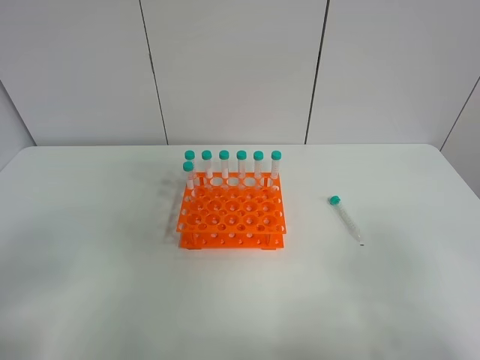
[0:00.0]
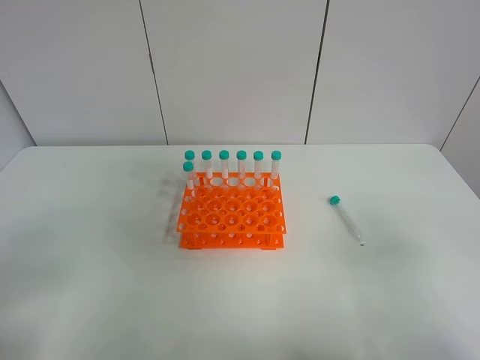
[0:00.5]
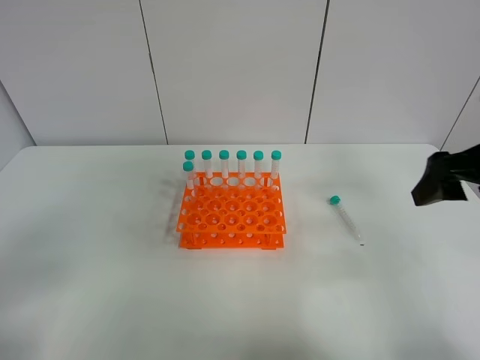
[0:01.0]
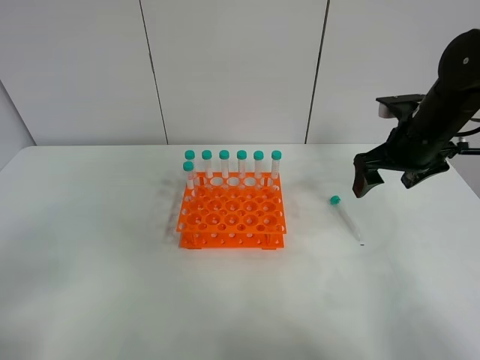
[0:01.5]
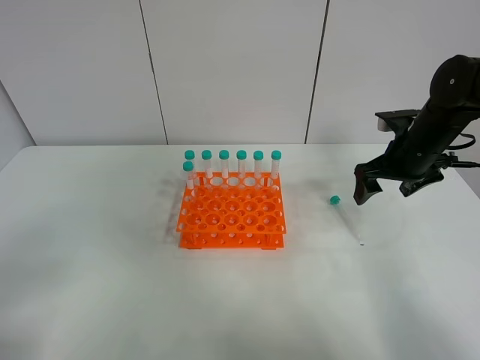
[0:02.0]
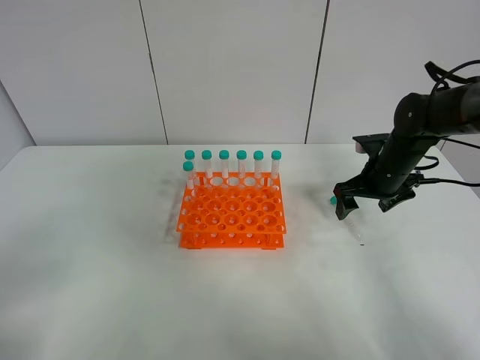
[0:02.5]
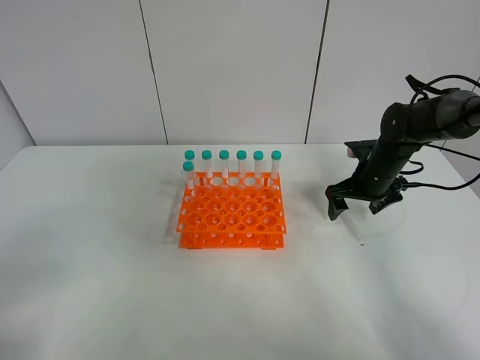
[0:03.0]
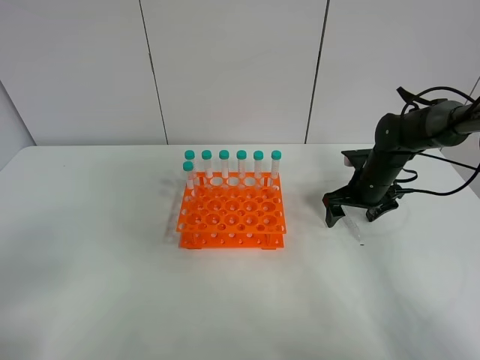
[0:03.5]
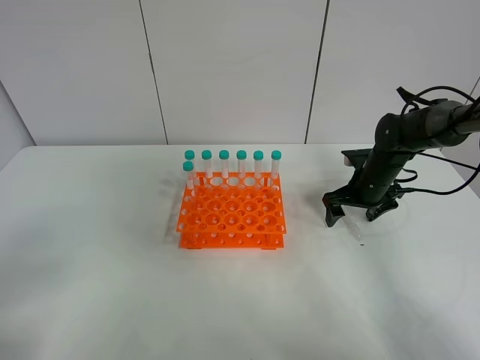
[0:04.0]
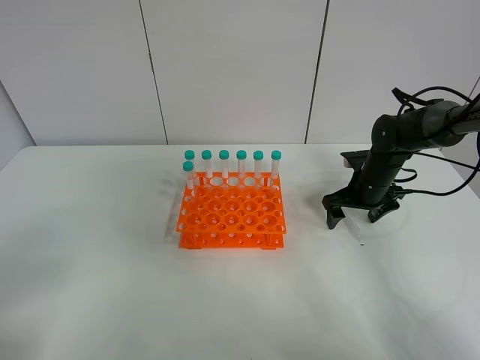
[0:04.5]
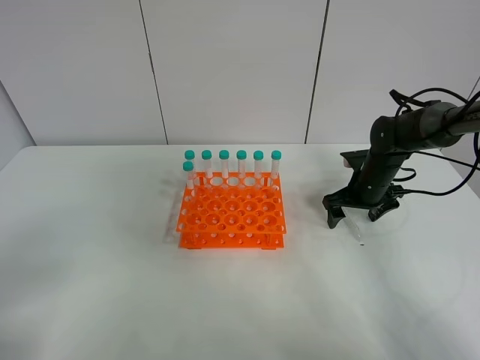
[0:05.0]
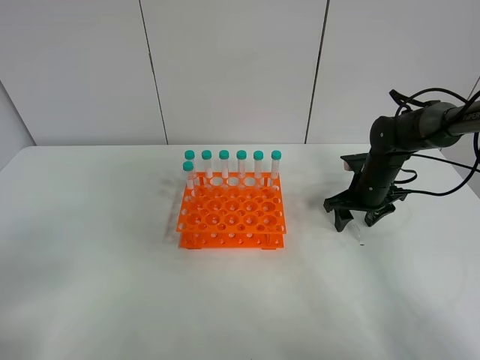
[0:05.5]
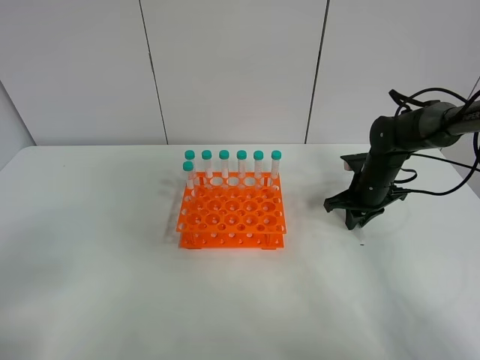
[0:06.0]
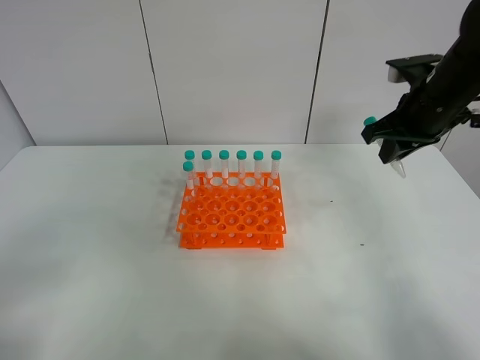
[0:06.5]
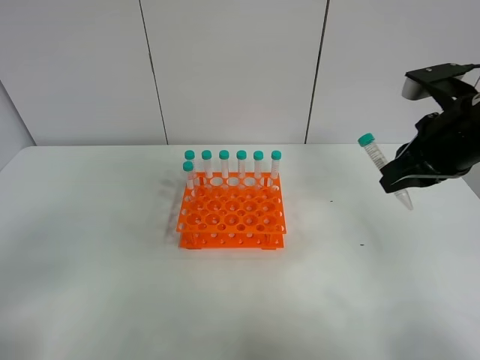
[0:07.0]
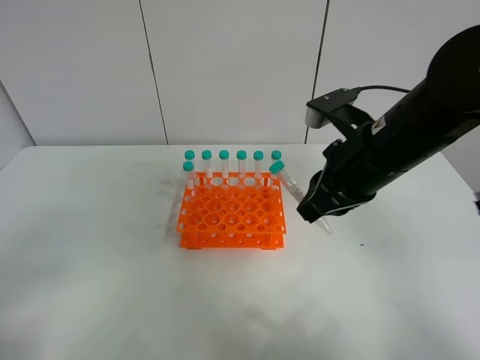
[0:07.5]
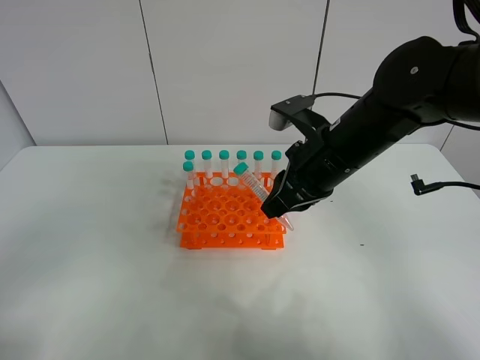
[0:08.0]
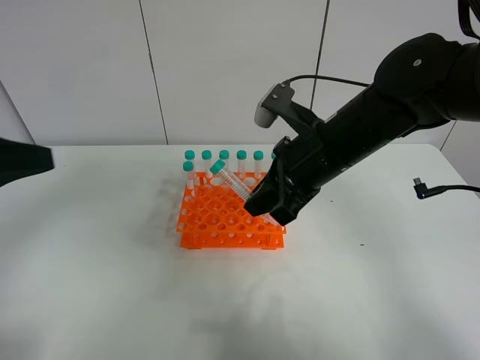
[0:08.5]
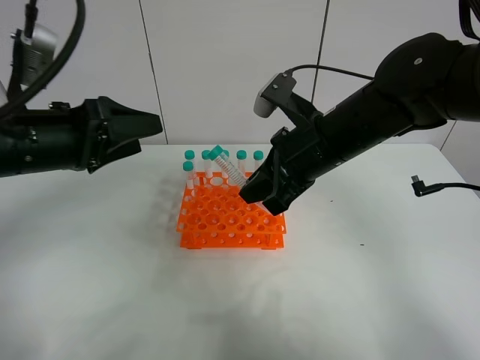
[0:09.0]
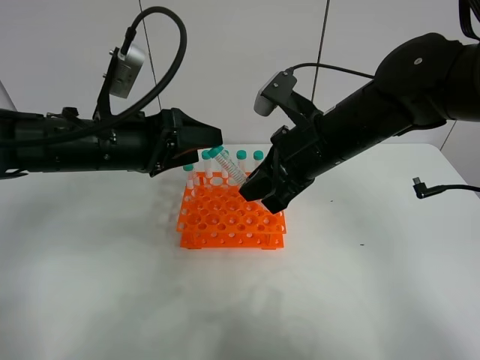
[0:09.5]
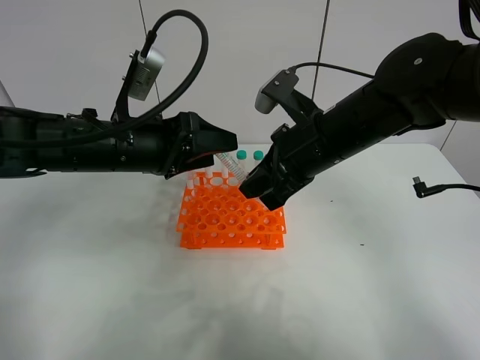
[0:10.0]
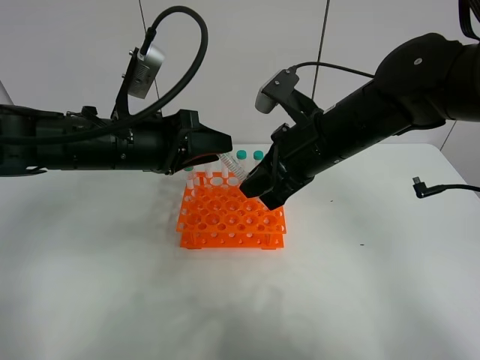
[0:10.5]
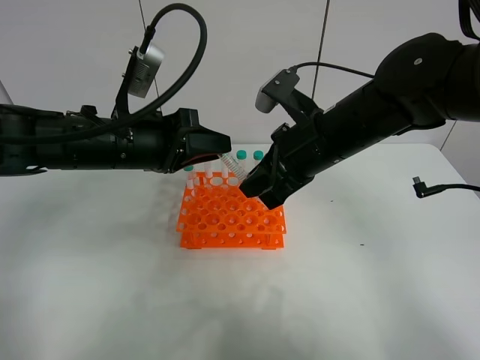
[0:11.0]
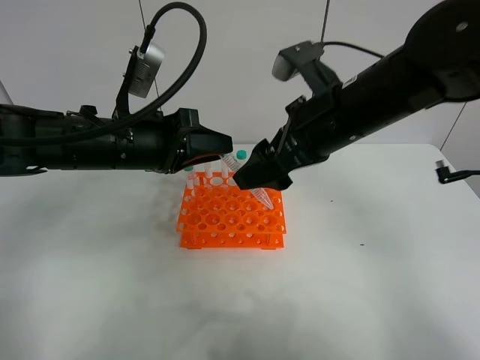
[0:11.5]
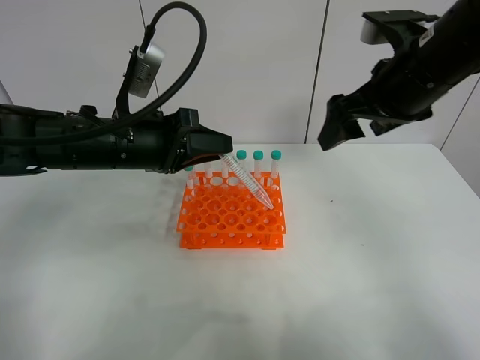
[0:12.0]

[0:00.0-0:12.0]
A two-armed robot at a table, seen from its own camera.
Task of the whole recording: Put the test tube on the table back onto the test tube rack.
Step, 0:00.0 to 0:05.5: Pick up the test tube with the right gripper.
Step, 0:06.0 to 0:11.0: Move the test tube from the right gripper to the left gripper.
0:00.0 to 0:02.0: The right gripper heads forward, covering approximately 35 cm.
0:02.0 to 0:04.0: The right gripper moves downward, about 10 cm.
0:04.0 to 0:06.0: The right gripper closes.
0:06.0 to 0:08.0: The right gripper shifts about 25 cm upward, to the left and backward.
0:08.0 to 0:10.0: The left gripper shifts roughly 35 cm forward and to the right.
0:10.0 to 0:12.0: The left gripper closes. The right gripper moves to the right and upward, roughly 10 cm, and opens its fingers.

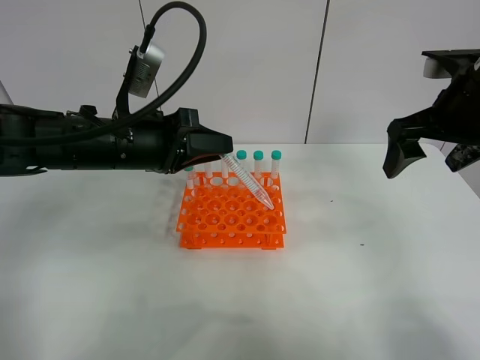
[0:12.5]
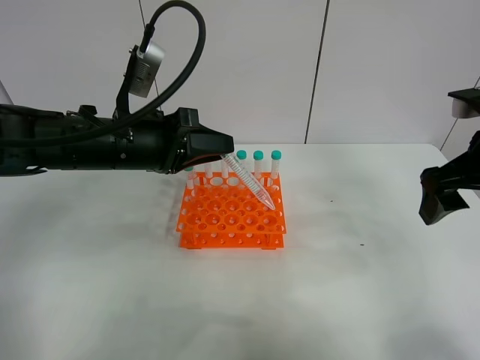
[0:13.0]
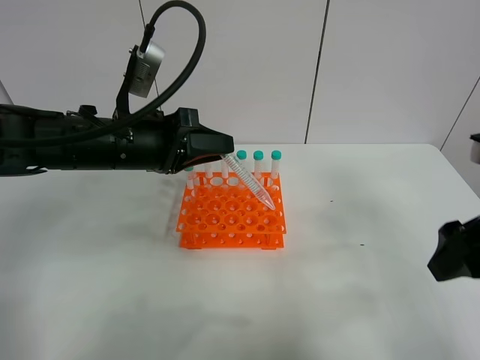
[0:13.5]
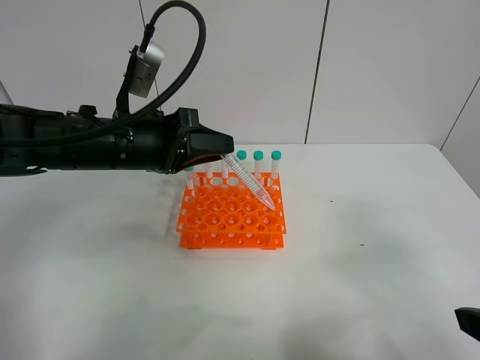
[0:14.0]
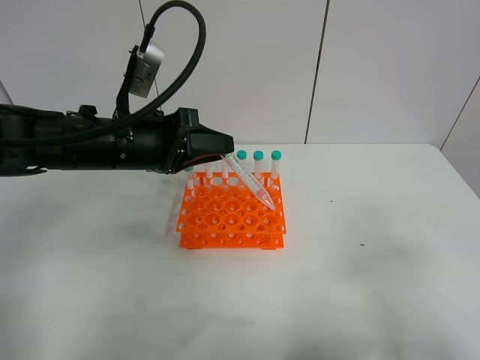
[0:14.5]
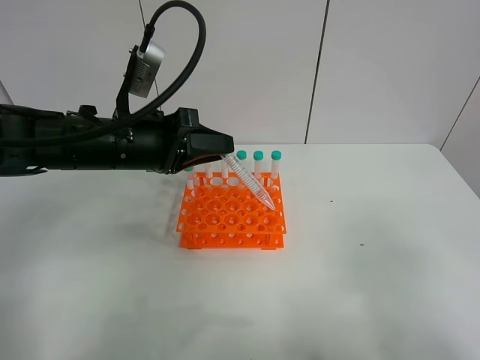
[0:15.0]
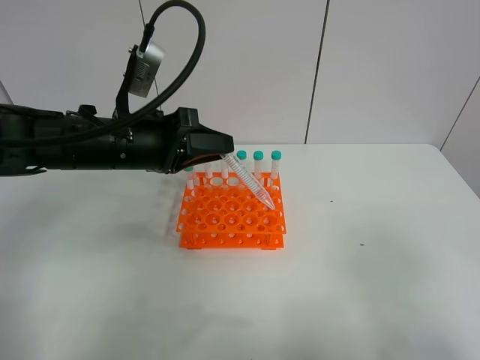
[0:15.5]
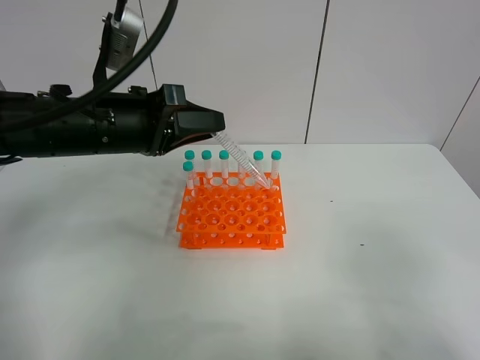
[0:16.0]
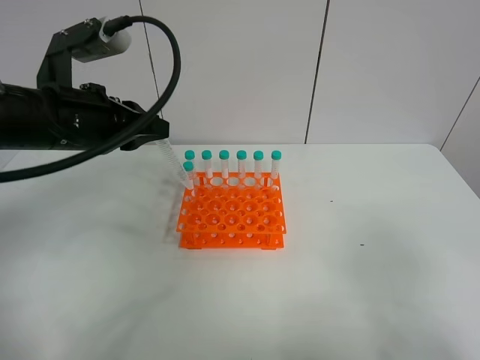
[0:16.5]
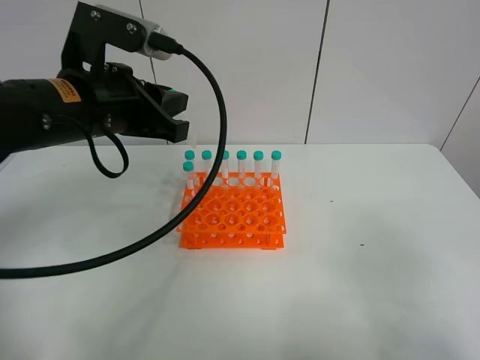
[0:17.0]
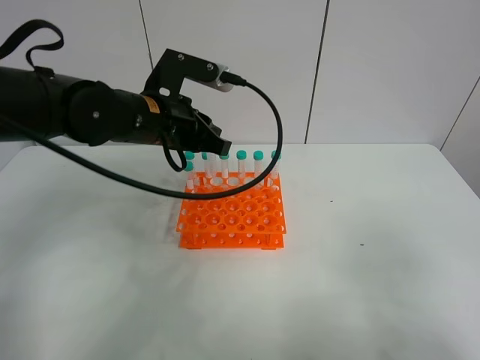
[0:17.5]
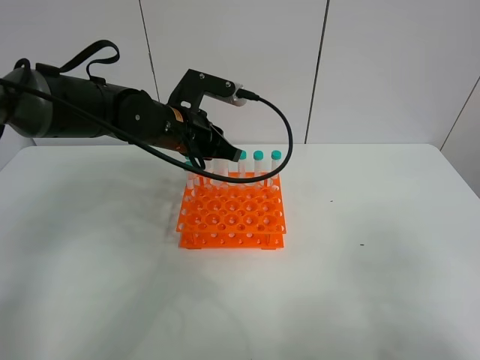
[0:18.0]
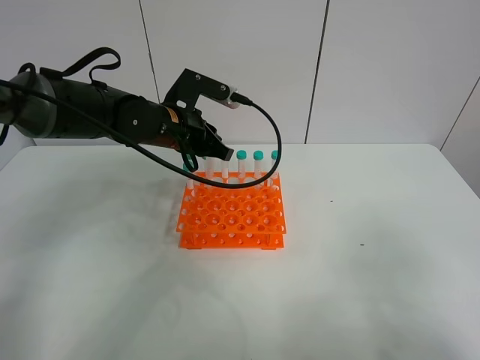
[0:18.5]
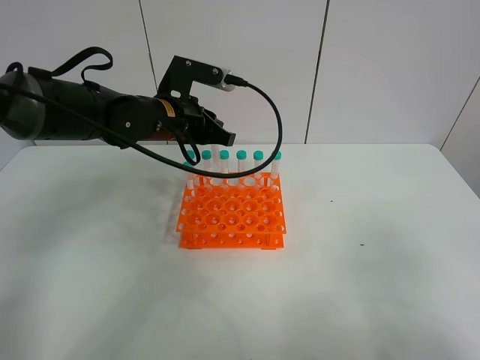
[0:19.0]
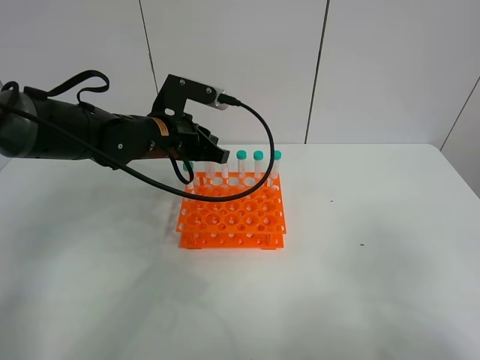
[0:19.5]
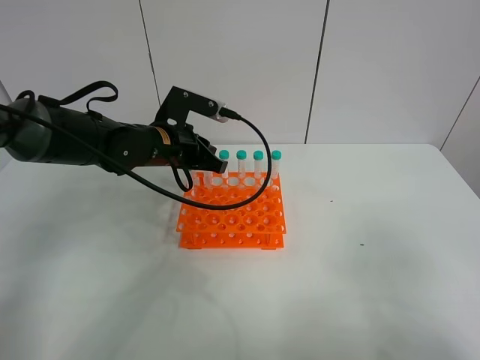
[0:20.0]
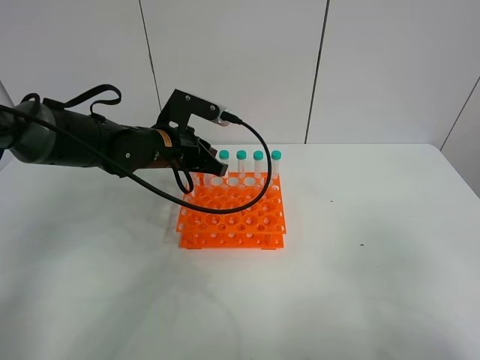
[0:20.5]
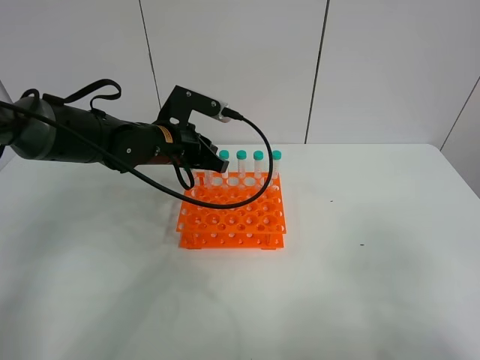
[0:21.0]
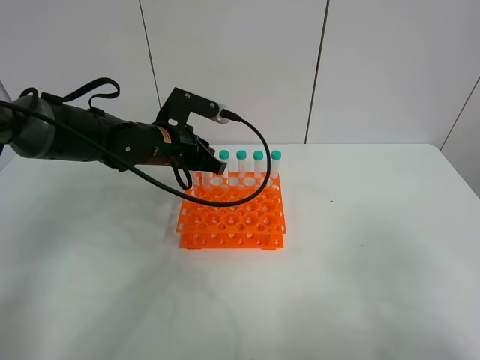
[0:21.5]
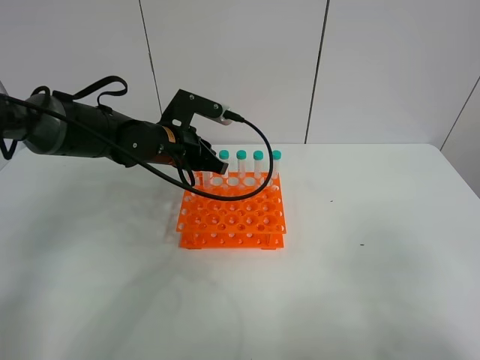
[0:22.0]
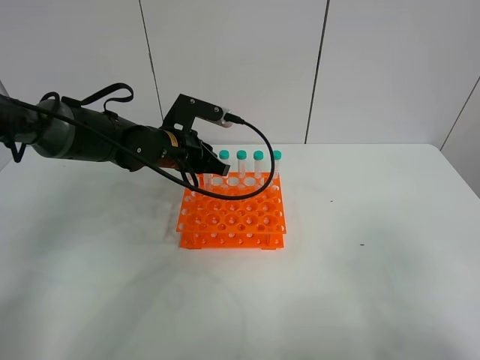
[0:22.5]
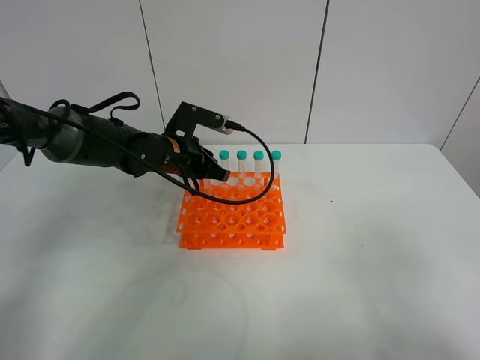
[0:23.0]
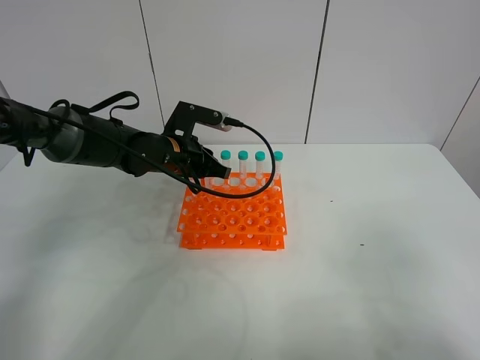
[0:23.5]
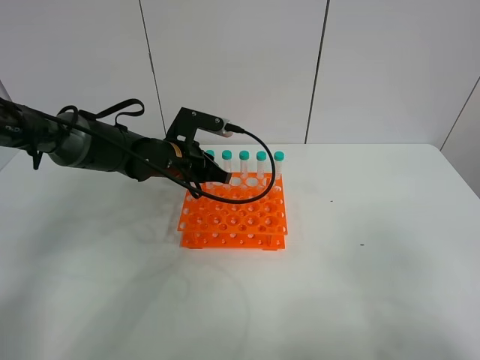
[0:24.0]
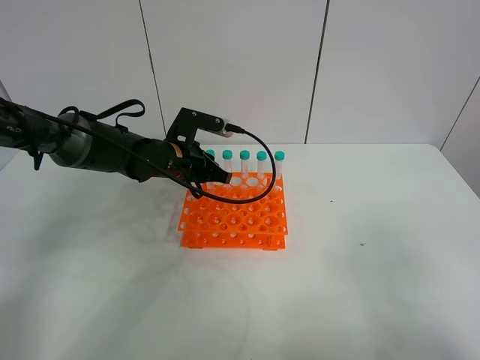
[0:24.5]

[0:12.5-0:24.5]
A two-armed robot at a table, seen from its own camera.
Task of the whole recording: Put the test tube on the table back onto the test tube rack.
0:12.5 to 0:14.5: The right gripper goes approximately 25 cm backward.
0:14.5 to 0:16.5: The left gripper moves upward, roughly 5 cm.
0:16.5 to 0:18.5: The left gripper shifts some 15 cm forward, to the right and downward.
0:18.5 to 0:22.5: There are only small adjustments of the grippers.
0:22.5 to 0:24.5: The grippers stay close to where they were, moving slightly.

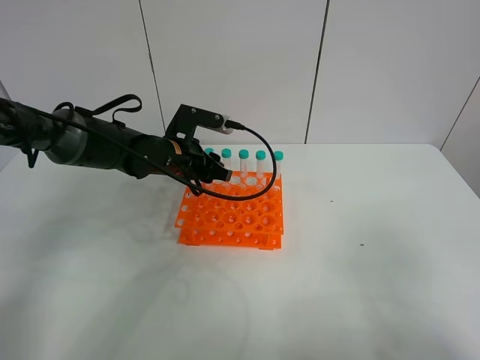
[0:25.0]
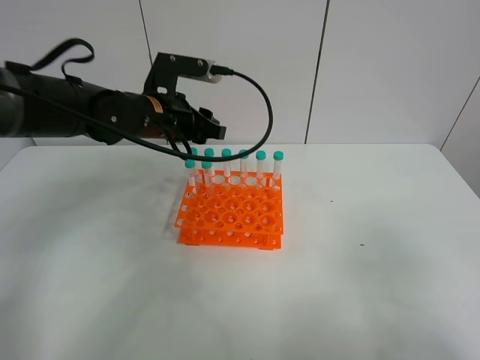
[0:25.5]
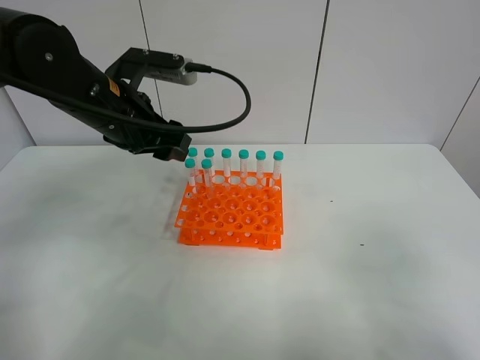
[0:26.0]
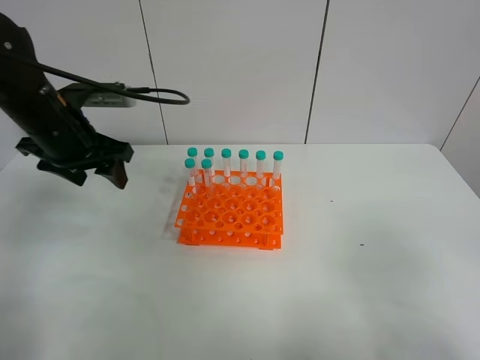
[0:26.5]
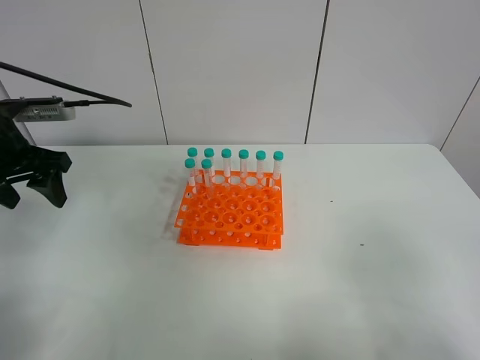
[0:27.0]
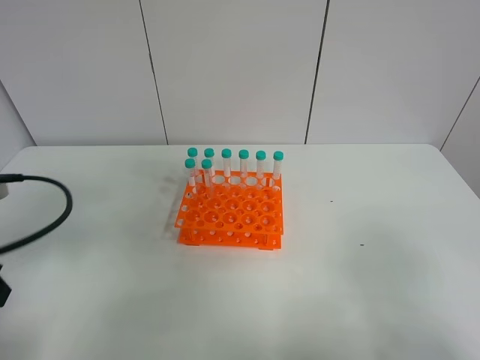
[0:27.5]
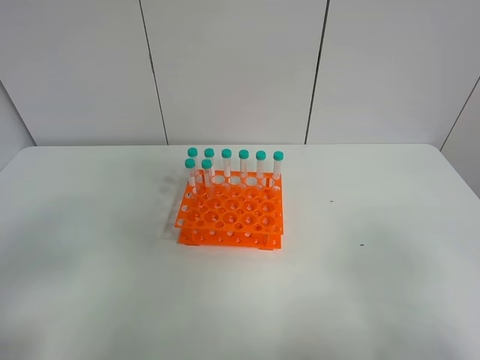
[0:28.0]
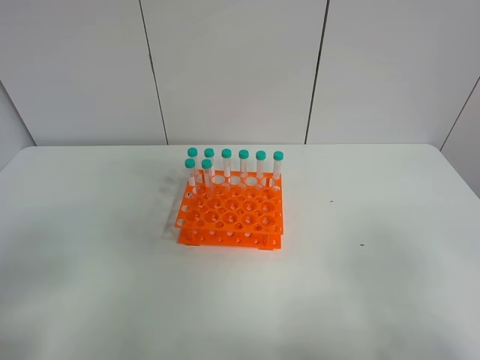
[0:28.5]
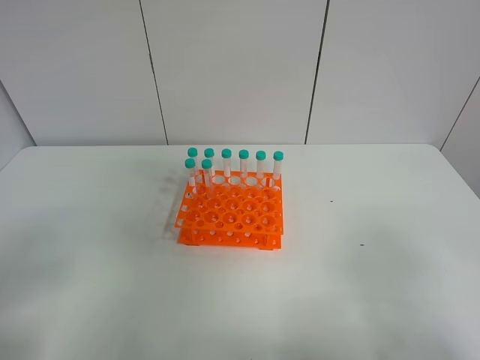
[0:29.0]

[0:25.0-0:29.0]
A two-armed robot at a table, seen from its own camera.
Task of the whole recording: Put the test tube on the table back onto the test tube rack.
0:25.0 to 0:27.0: The left gripper is displaced to the left, upward and backward by roughly 25 cm, and opens its fingers.
0:27.0 to 0:29.0: The left gripper moves backward, roughly 30 cm.
